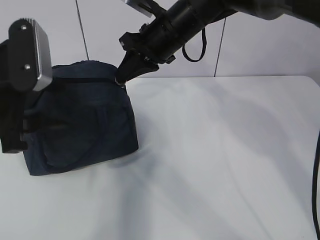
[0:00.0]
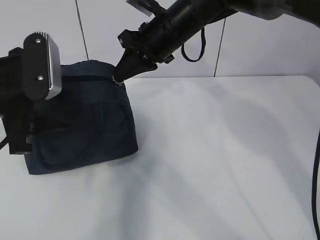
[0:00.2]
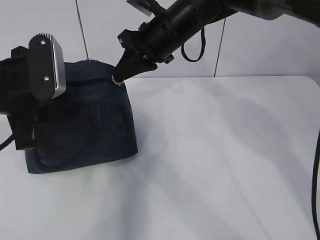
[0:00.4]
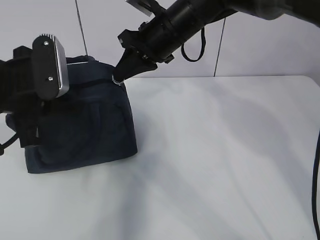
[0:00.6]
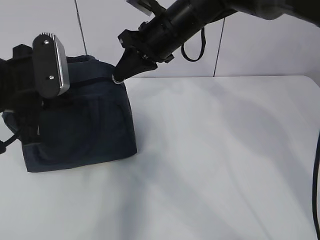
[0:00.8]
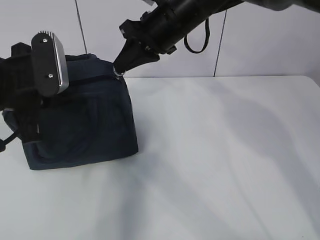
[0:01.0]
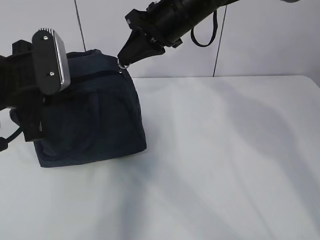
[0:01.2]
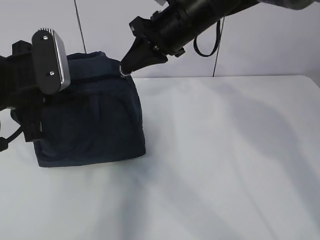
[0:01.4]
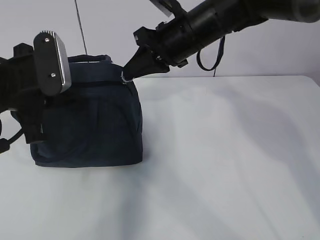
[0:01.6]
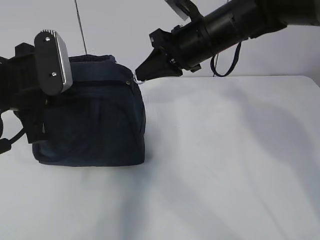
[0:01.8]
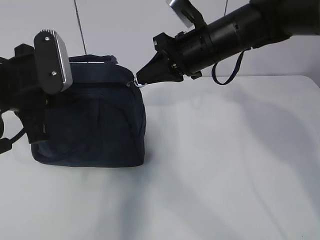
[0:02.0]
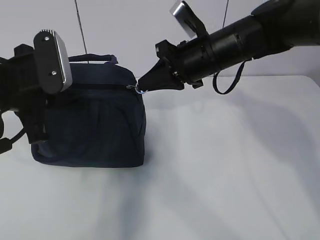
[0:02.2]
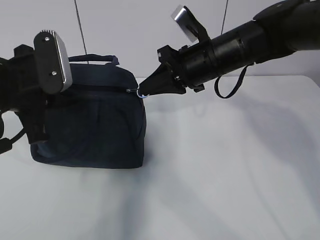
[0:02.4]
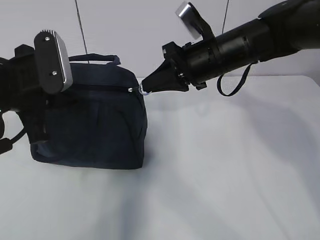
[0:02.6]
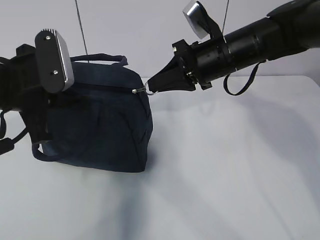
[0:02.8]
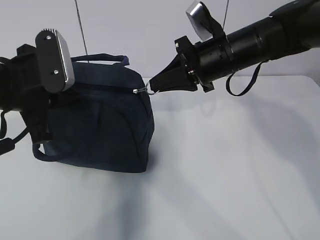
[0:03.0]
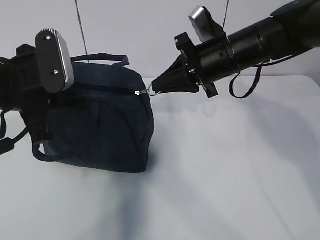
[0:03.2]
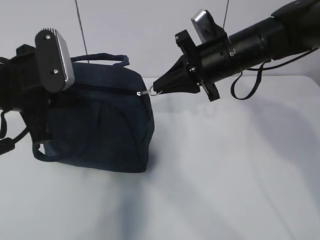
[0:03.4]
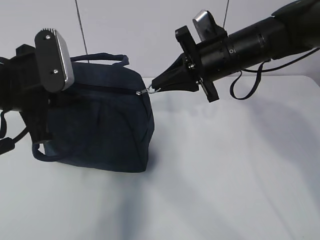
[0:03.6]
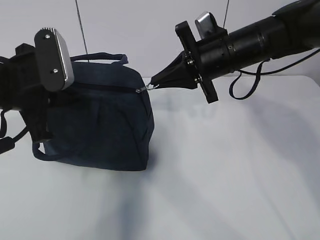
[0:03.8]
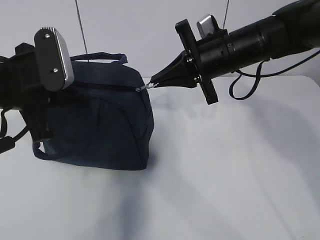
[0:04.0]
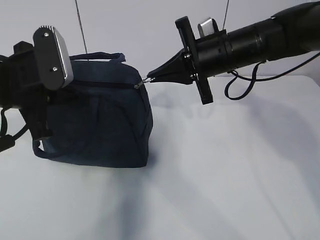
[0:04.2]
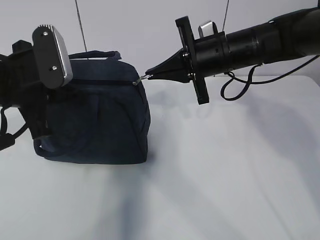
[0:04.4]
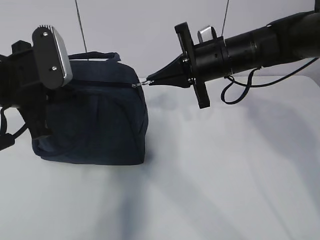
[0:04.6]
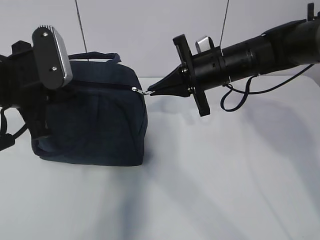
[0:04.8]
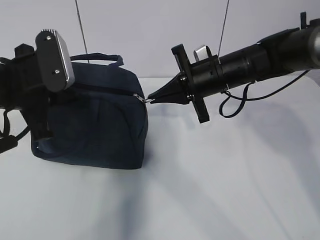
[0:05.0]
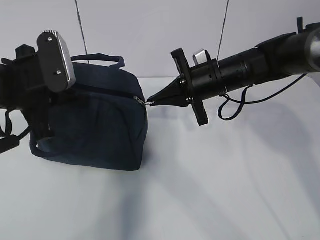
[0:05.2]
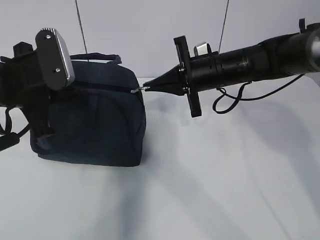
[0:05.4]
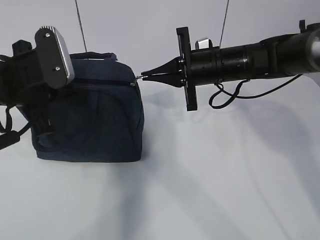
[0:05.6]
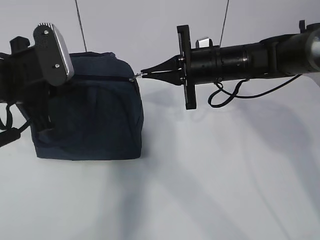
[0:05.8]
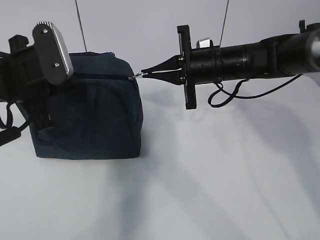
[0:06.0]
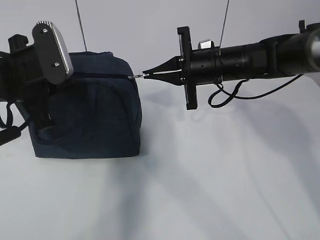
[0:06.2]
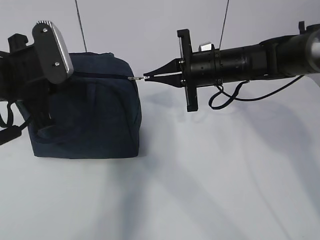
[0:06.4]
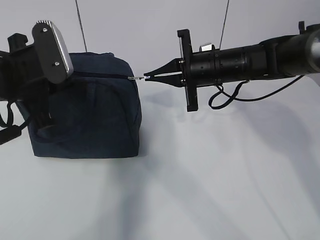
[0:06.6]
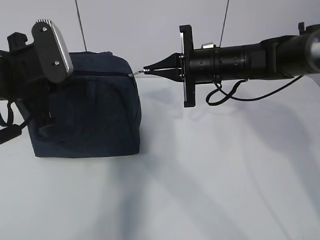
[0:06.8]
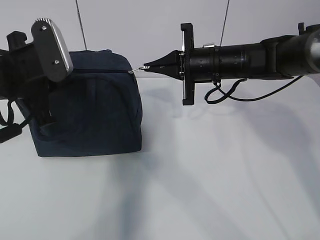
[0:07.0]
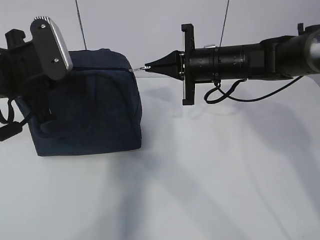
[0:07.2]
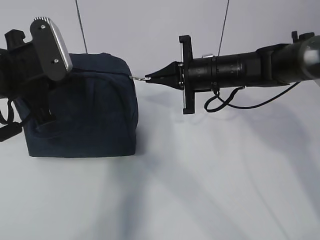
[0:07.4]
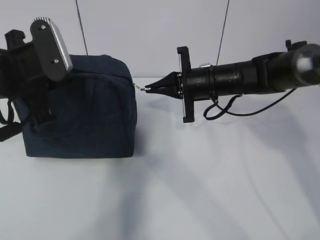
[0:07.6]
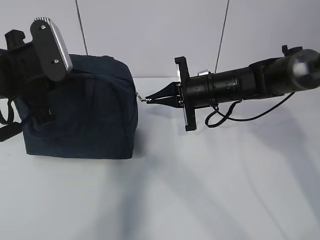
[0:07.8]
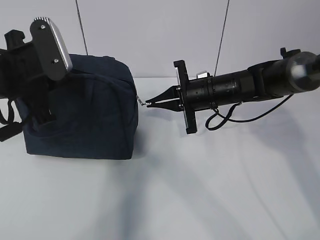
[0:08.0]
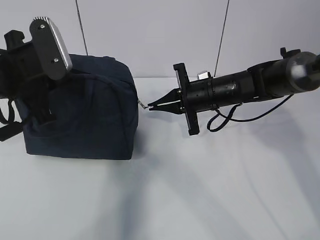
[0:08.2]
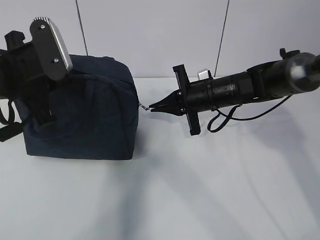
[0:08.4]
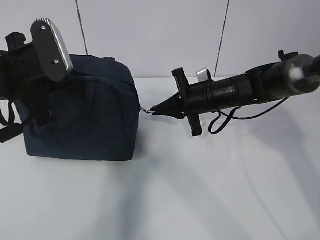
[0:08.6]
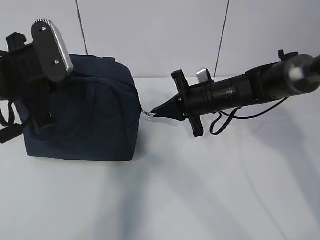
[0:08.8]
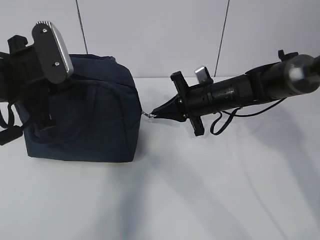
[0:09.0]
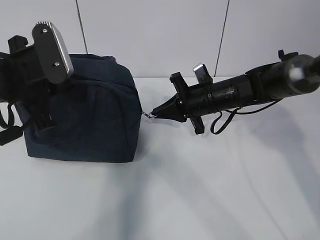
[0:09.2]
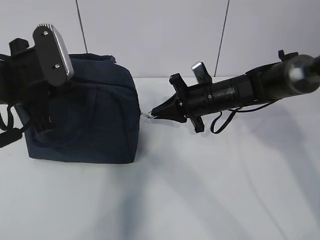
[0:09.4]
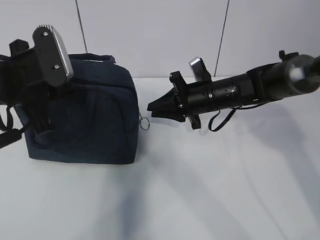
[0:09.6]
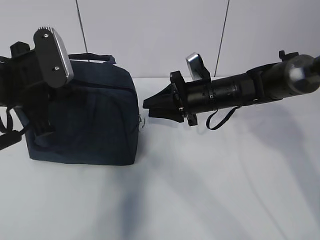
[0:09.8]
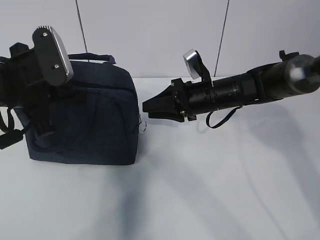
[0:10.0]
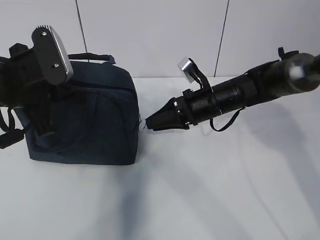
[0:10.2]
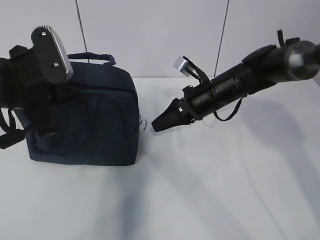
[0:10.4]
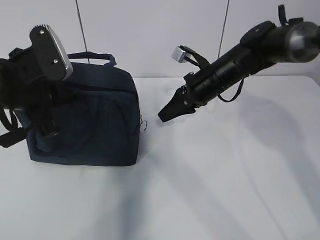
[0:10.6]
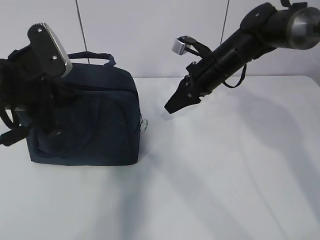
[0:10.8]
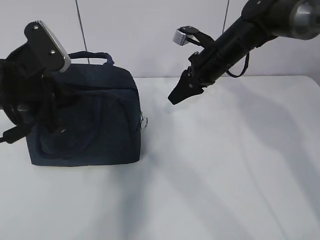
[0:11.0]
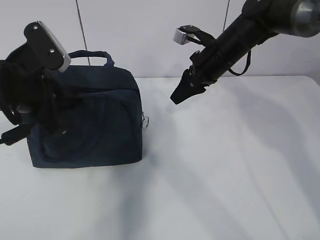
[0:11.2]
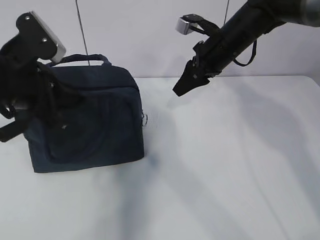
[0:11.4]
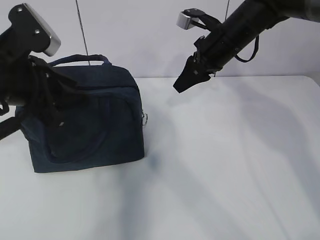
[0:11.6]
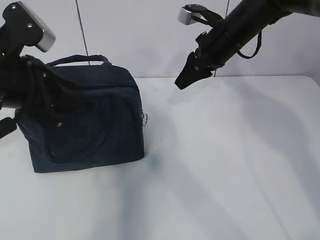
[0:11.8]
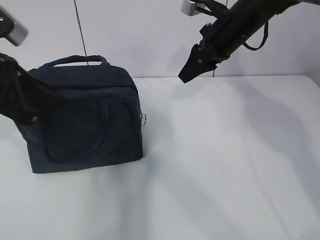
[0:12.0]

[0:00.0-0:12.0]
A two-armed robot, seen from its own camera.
0:00.0 to 0:01.6: The left gripper closes.
0:01.6 to 0:03.0: The right gripper heads to the right, covering approximately 5 cm.
0:04.4 to 0:06.0: The grippers make only small movements.
0:06.0 to 0:07.6: The grippers stay close to where they were, moving slightly.
0:09.0 to 0:10.4: The right gripper opens.
0:10.4 to 0:12.0: The right gripper goes roughly 15 cm upward. The left gripper moves roughly 5 cm, and opens.

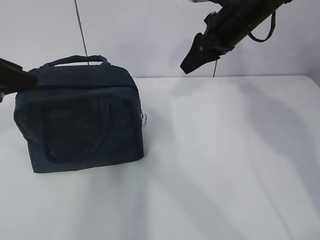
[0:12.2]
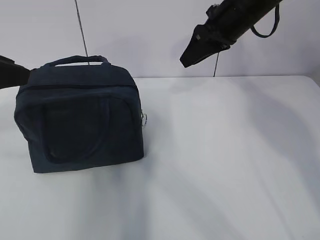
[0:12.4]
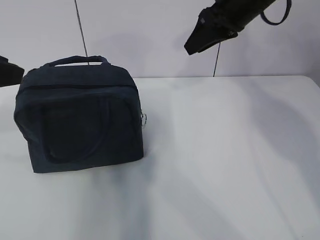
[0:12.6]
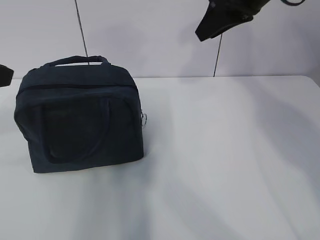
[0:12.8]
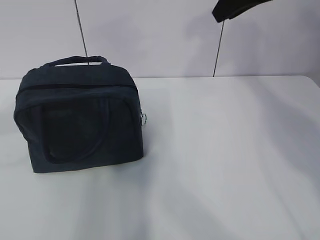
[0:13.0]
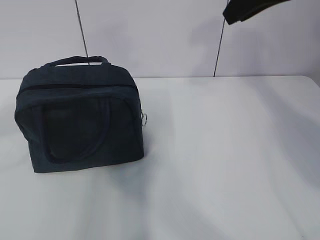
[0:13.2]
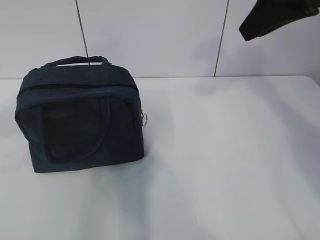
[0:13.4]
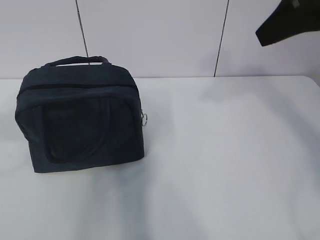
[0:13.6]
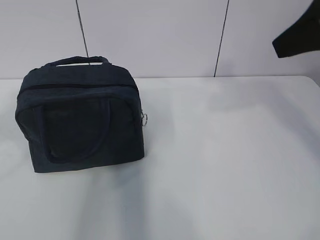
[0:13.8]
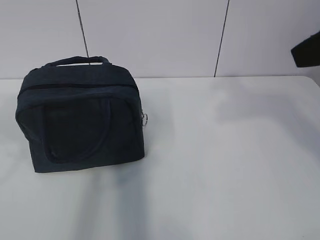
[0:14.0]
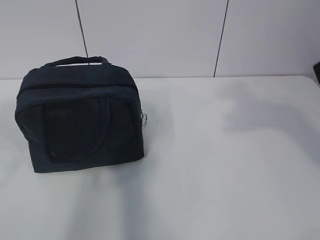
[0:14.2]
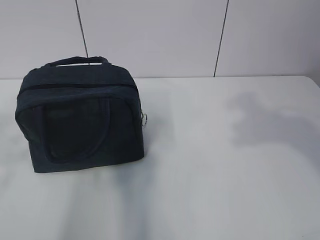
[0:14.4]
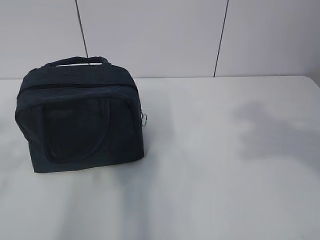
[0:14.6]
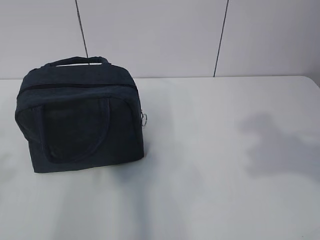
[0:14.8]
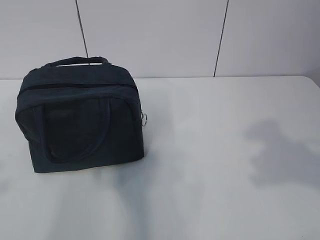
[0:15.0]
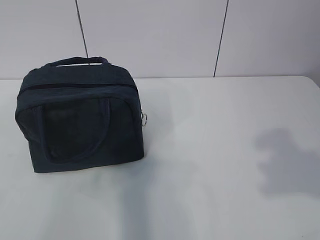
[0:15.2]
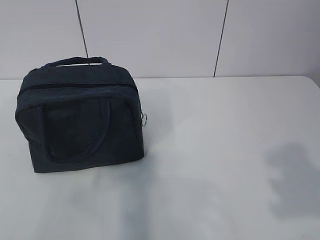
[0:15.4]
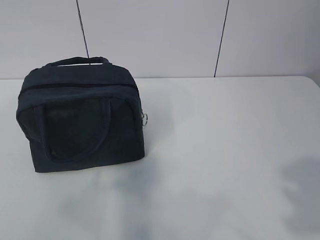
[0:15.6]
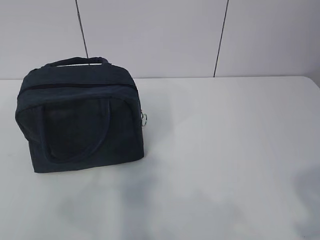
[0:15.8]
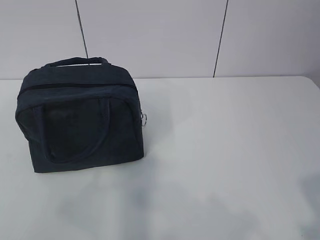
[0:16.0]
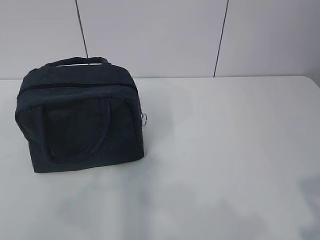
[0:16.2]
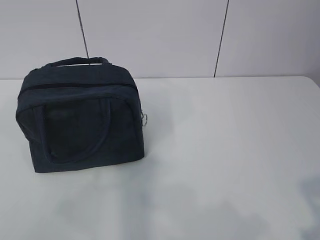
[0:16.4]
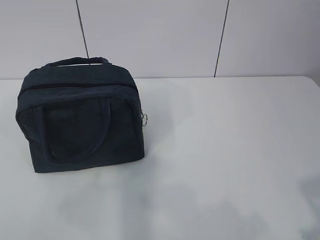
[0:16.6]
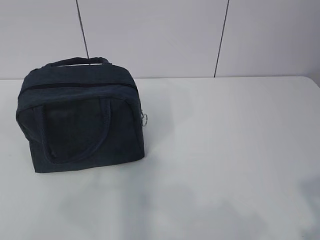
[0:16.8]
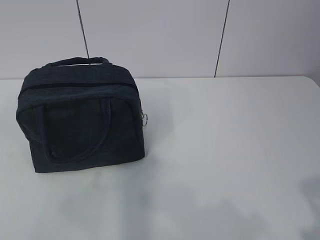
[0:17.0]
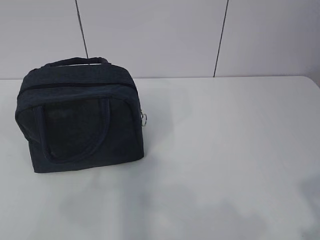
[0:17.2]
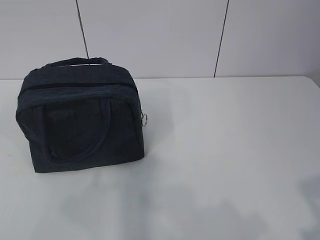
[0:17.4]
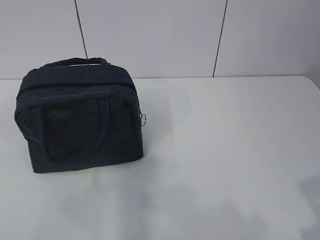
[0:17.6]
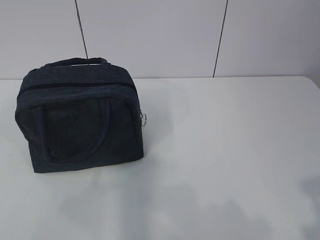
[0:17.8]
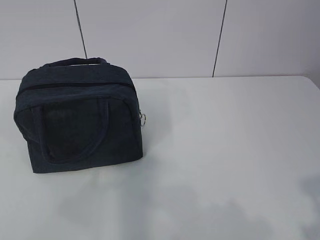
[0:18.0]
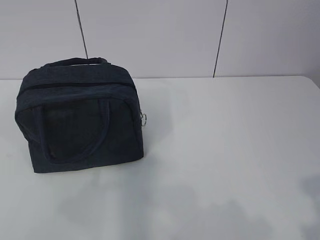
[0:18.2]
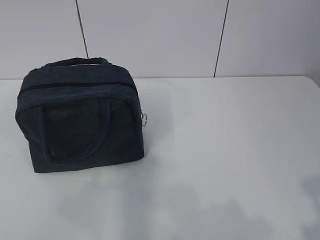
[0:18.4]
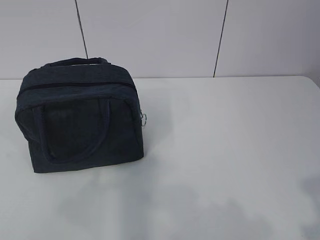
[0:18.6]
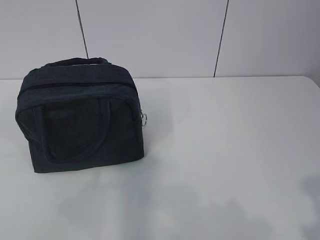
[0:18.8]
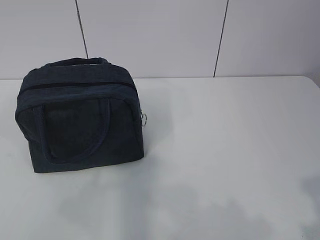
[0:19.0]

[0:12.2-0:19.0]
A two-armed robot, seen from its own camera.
0:12.2 to 0:13.6: The left gripper heads backward, covering about 5 cm. Meanwhile the right gripper moves backward and upward, some 20 cm.
0:13.6 to 0:15.0: The right gripper travels backward by about 20 cm.
0:15.0 to 0:16.2: The right gripper moves backward and downward, approximately 10 cm. Meanwhile the left gripper moves roughly 5 cm.
0:16.2 to 0:17.6: The two grippers keep their place.

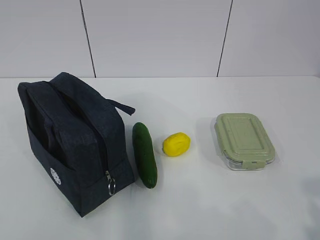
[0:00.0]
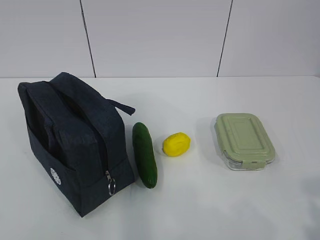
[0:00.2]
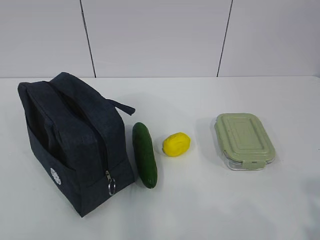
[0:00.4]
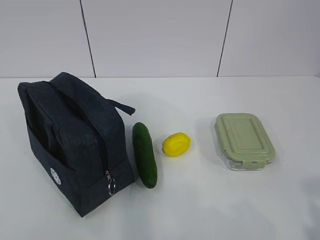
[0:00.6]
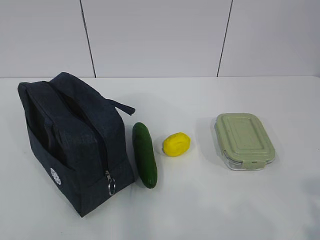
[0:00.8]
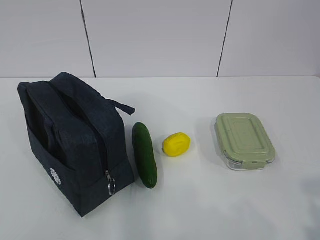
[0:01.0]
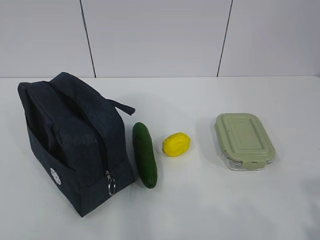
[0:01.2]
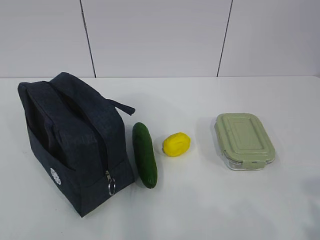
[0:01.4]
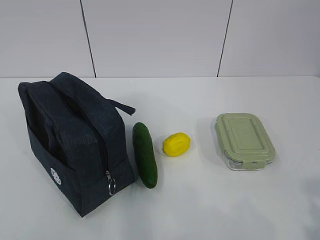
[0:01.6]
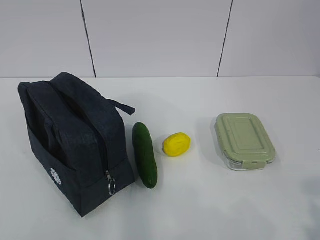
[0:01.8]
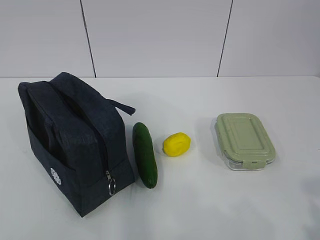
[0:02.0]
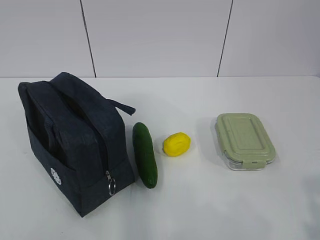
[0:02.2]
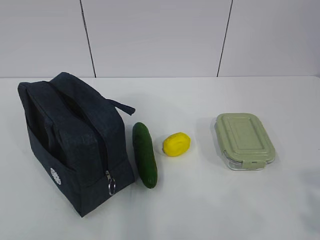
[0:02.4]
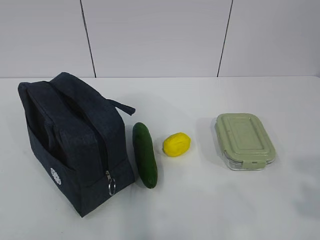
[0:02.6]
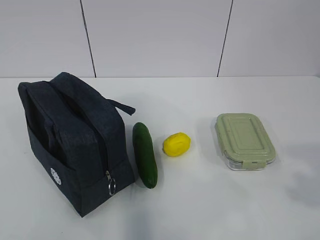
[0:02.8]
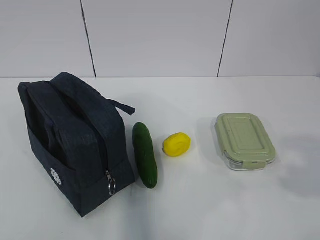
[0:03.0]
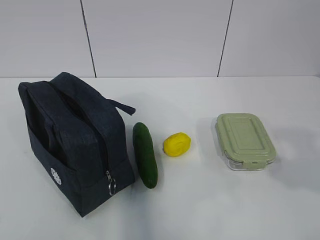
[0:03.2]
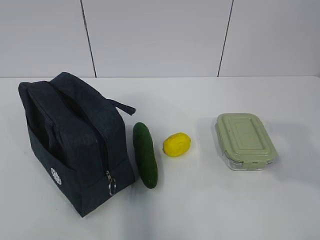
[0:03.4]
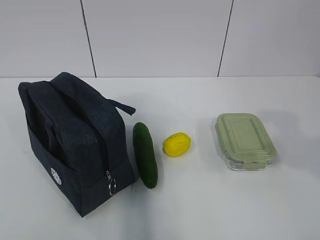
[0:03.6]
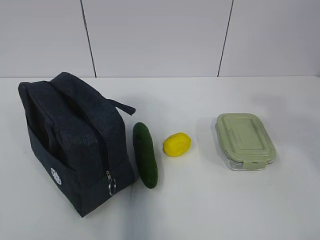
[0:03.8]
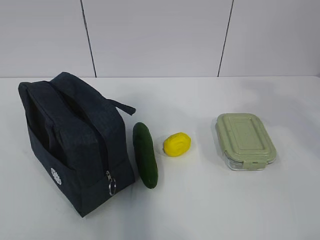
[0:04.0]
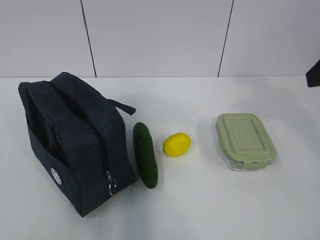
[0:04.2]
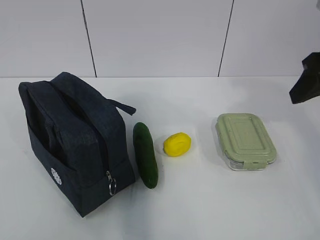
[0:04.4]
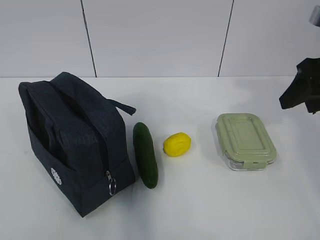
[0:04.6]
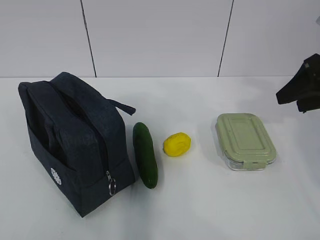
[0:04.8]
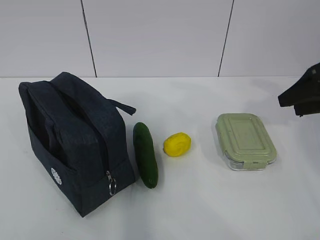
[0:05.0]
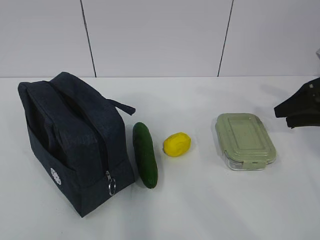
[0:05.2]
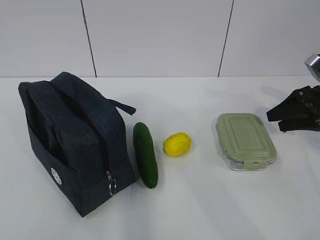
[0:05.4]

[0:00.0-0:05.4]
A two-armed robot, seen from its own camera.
0:02.8 to 0:04.0: The right gripper travels forward by roughly 15 cm.
0:04.0 to 0:05.4: The right gripper goes about 25 cm downward, forward and to the right.
